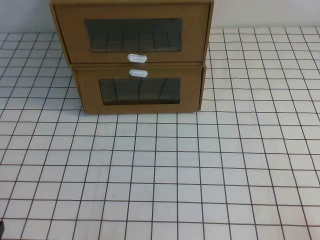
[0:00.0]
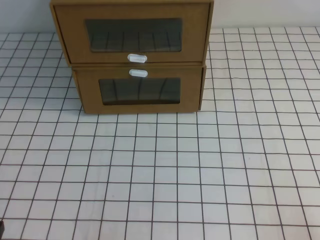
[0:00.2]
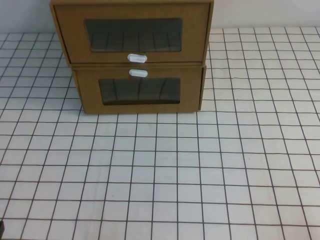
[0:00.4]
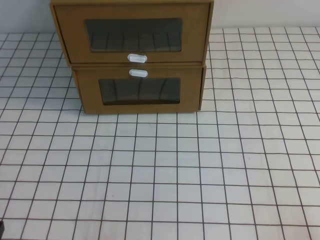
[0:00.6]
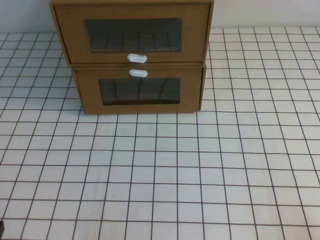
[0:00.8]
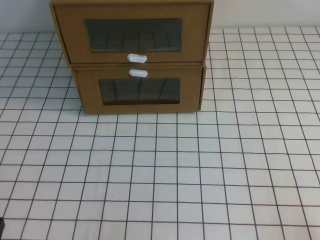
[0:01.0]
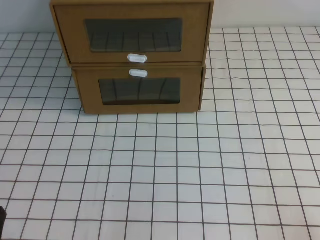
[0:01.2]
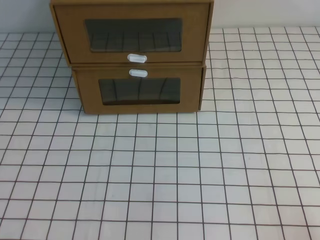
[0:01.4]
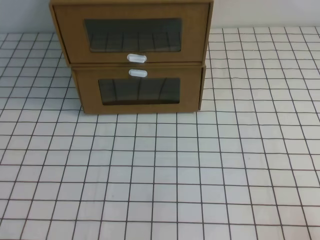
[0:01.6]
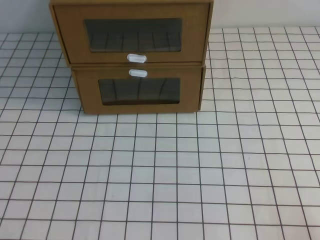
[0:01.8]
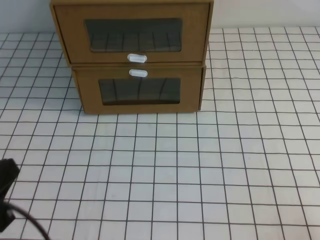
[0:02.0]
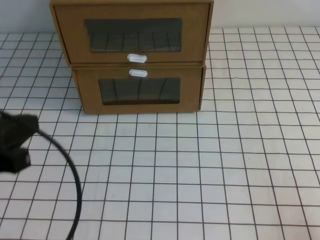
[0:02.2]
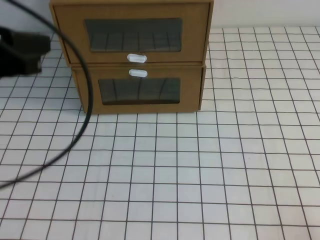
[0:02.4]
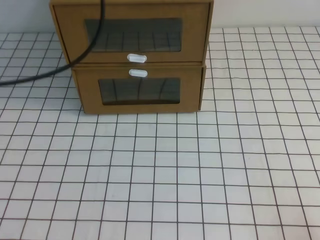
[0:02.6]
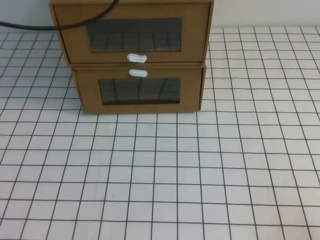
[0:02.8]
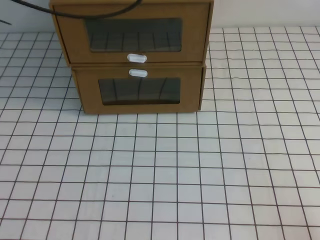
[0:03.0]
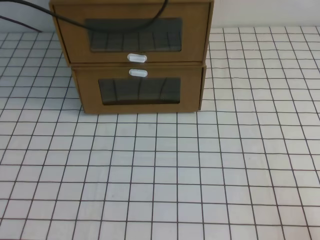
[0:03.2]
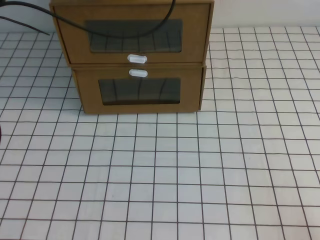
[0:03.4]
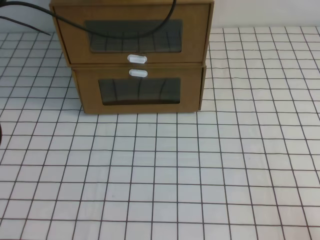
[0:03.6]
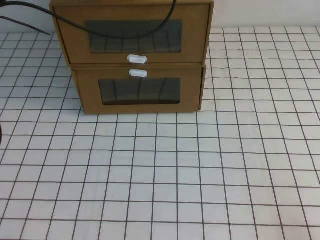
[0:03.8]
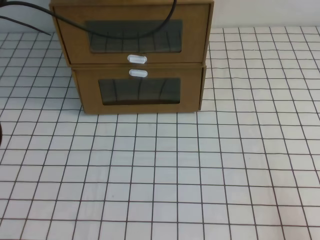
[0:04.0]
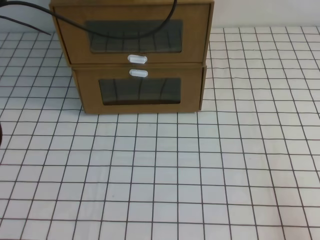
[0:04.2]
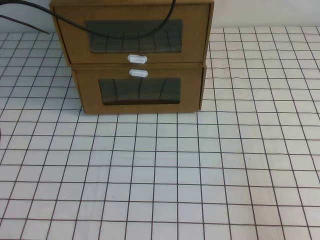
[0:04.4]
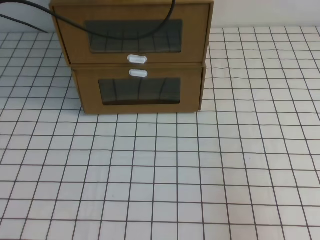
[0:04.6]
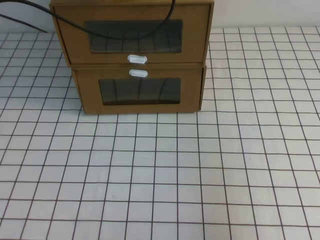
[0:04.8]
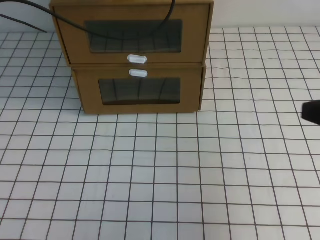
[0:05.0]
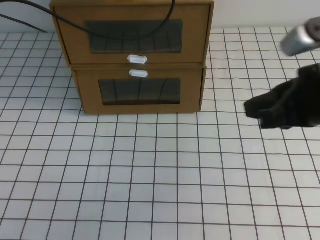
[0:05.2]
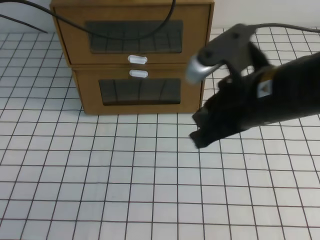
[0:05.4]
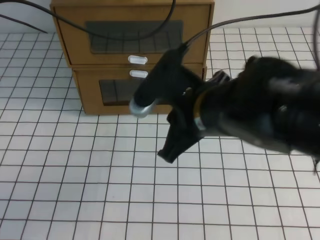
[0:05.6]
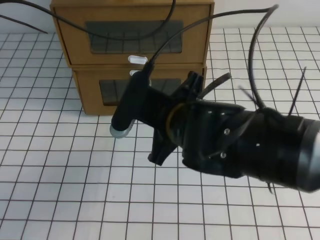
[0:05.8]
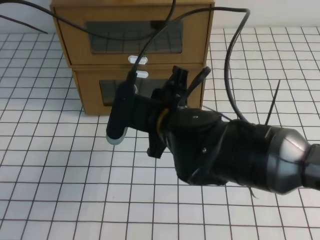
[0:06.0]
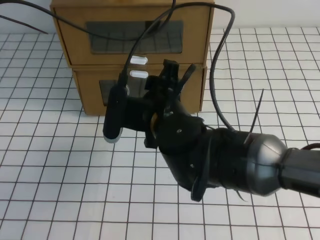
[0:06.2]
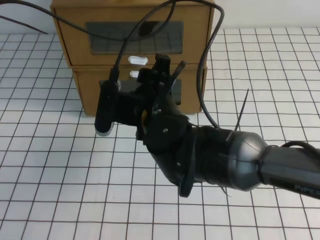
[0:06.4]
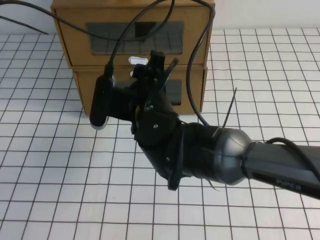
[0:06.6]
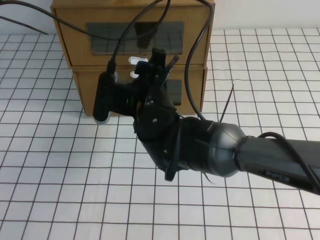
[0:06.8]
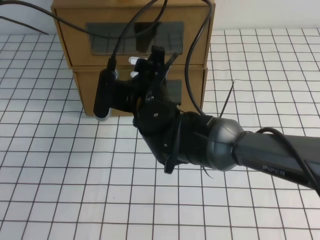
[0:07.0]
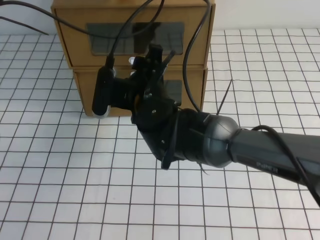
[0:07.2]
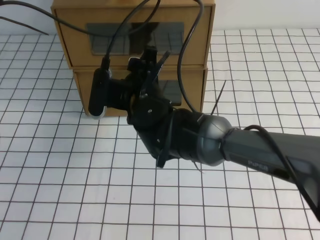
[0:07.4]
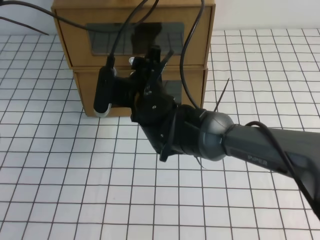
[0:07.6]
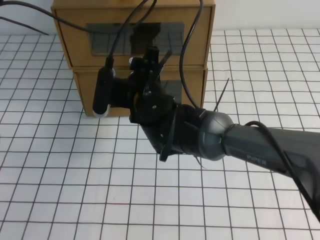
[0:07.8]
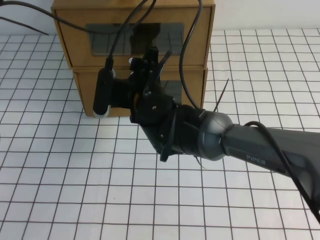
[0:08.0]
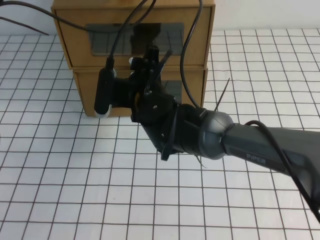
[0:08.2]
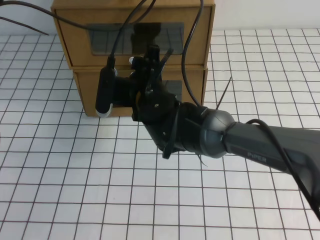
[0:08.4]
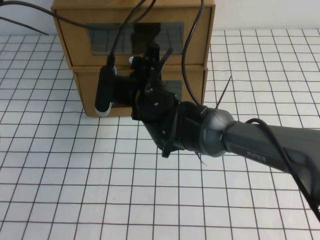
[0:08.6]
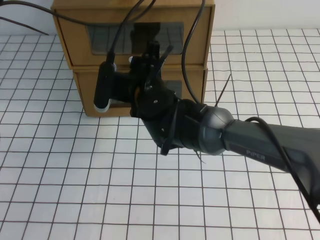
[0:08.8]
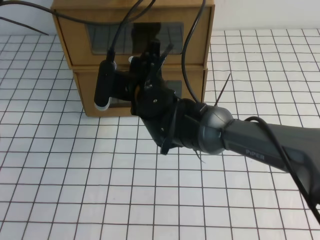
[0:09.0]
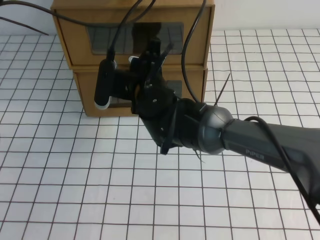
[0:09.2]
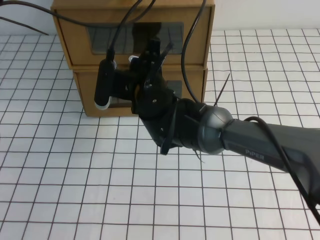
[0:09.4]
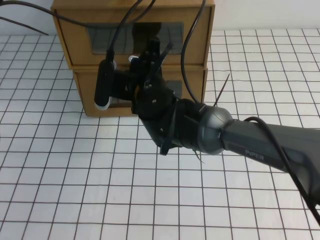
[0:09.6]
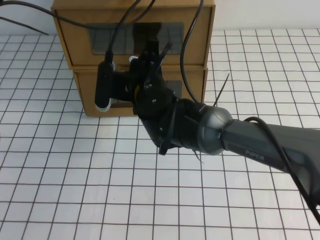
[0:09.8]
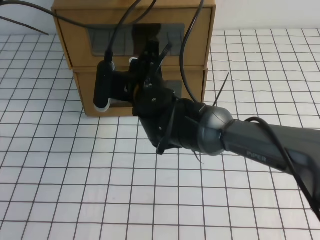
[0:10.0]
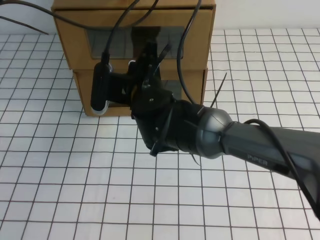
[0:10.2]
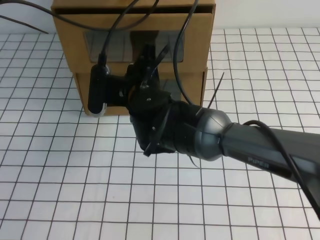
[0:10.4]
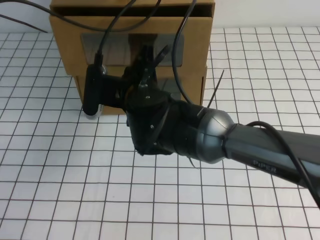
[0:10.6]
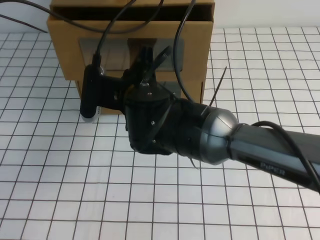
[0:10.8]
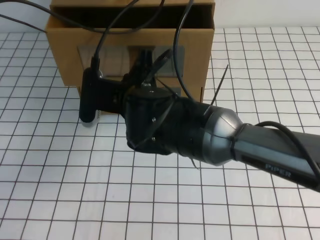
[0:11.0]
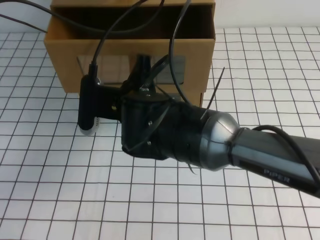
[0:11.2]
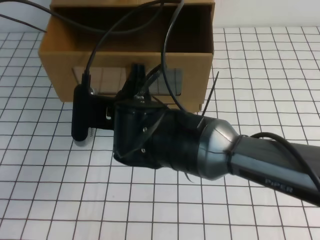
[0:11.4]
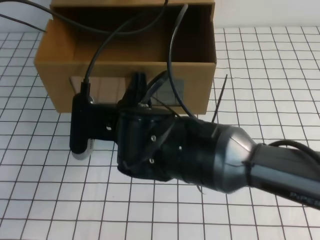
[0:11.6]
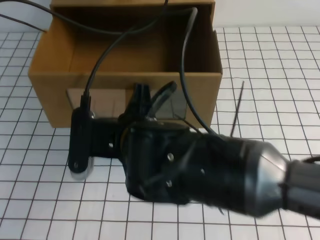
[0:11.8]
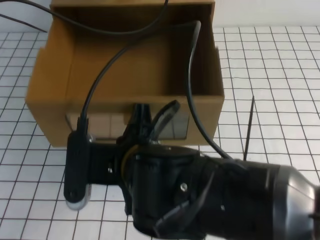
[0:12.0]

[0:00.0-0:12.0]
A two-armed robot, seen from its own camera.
Task of the whole recording: open the shoebox on the white tablecloth.
0:03.0 to 0:04.4: The left gripper heads forward and downward, covering some 10 cm.
0:04.4 to 0:06.0: The right gripper heads to the left and forward, covering roughly 35 cm.
0:06.0 to 0:07.6: The right gripper travels forward and to the left by about 10 cm, and opens up.
0:07.6 to 0:09.0: The right gripper closes its fingers.
0:09.0 to 0:10.4: The right gripper closes up.
0:10.4 to 0:12.0: The right gripper moves backward, about 15 cm.

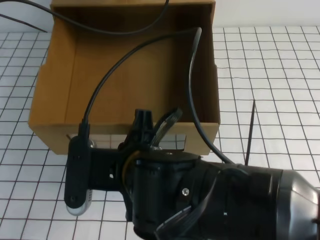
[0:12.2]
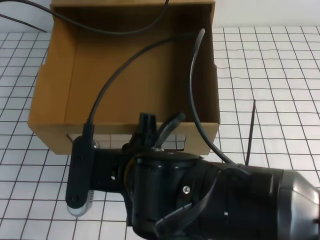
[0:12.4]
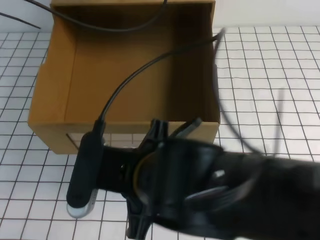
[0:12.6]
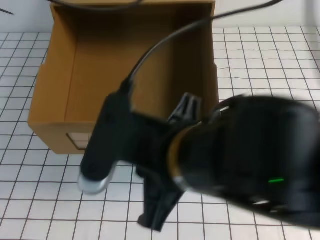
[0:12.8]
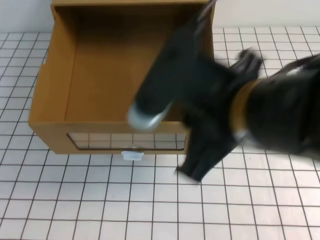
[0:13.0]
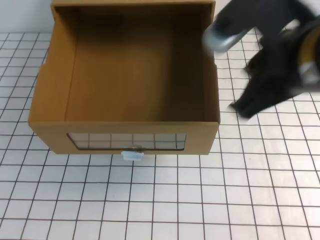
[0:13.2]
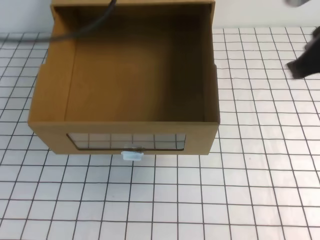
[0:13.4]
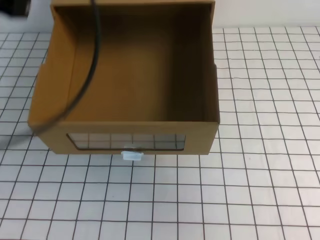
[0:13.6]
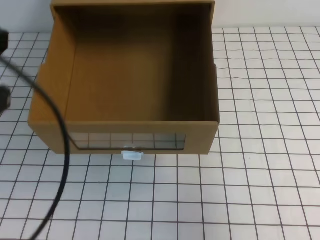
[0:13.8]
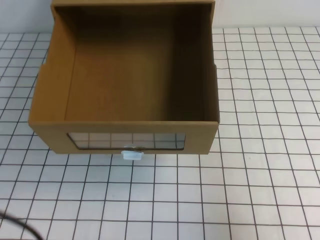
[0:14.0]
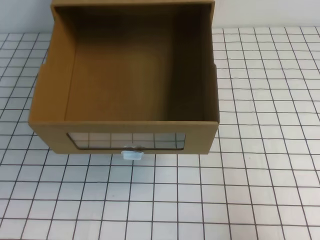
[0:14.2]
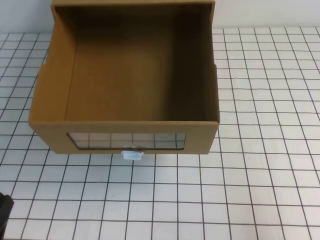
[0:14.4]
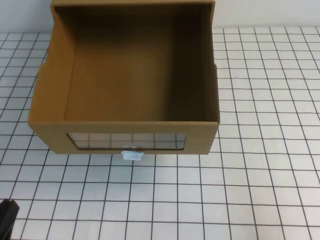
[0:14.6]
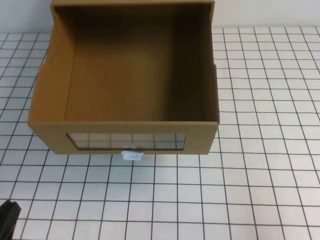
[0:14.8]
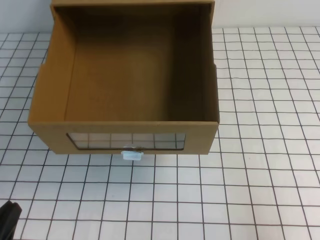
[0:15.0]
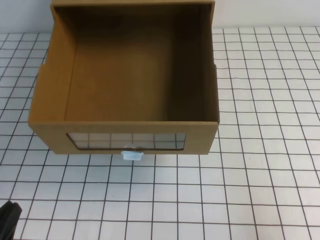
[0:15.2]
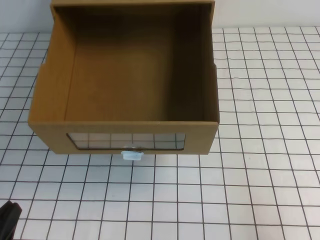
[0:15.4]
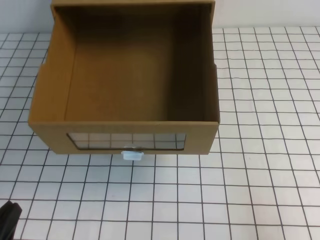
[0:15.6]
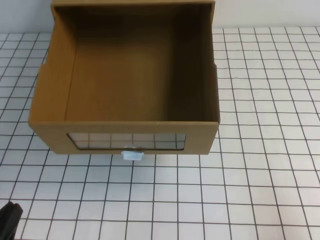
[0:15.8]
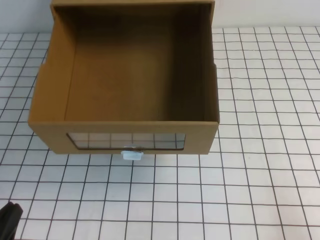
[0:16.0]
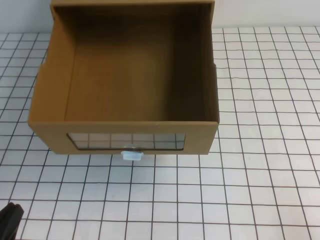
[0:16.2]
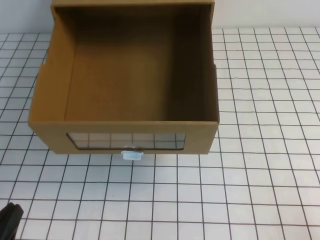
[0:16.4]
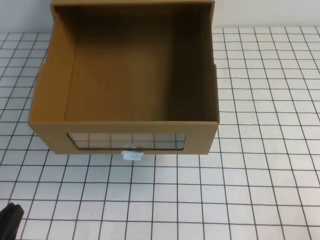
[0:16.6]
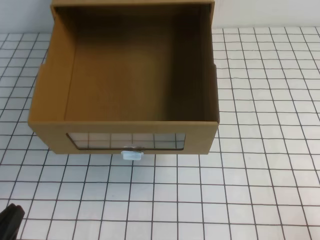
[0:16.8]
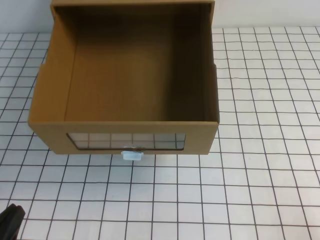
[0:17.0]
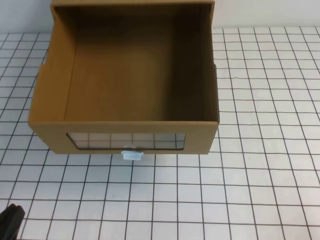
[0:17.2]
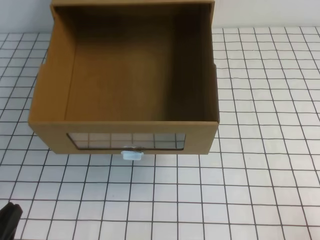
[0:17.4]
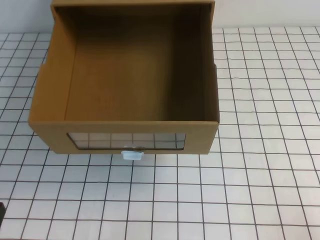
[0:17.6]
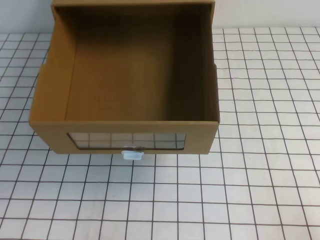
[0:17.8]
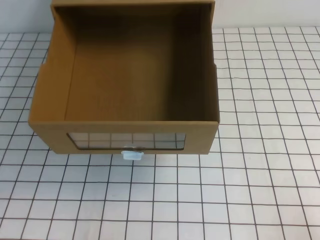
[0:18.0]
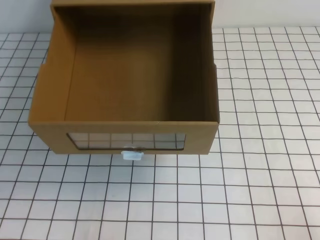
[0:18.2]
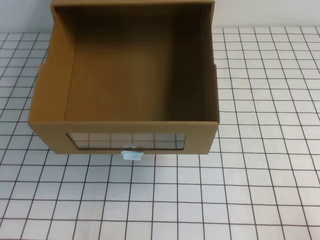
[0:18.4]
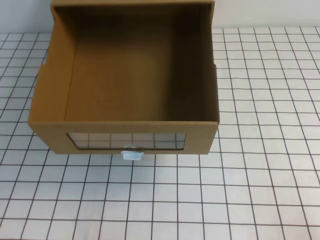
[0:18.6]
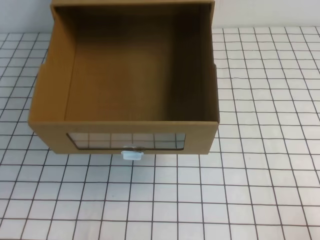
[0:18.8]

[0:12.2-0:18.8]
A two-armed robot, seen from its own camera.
Task of the whole recording: open the shoebox on the white tablecloth.
Step, 0:12.2 to 0:18.8: Open the shoe box.
0:12.2 to 0:13.8: The left gripper heads backward, covering roughly 25 cm, while the right gripper shifts about 30 cm to the right.
0:13.8 to 0:15.4: The right gripper shifts some 15 cm downward and backward; the left gripper shifts some 30 cm downward and backward.
0:15.4 to 0:17.2: The right gripper travels downward and backward by roughly 10 cm.

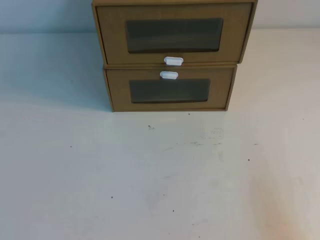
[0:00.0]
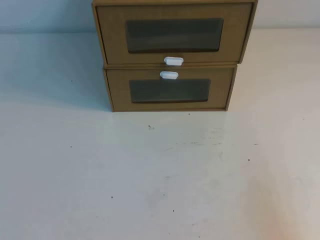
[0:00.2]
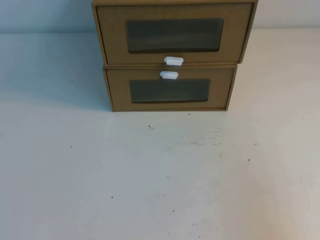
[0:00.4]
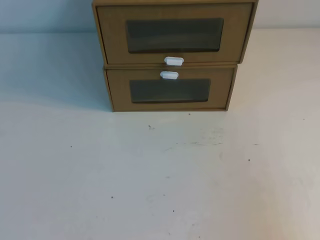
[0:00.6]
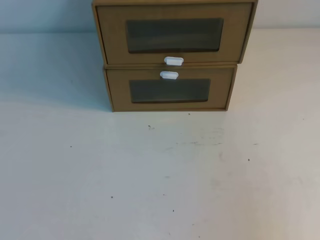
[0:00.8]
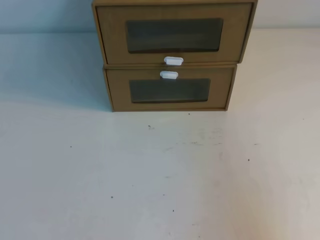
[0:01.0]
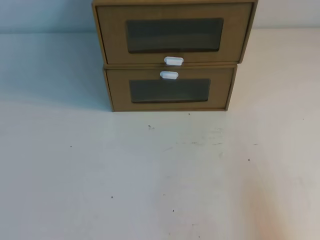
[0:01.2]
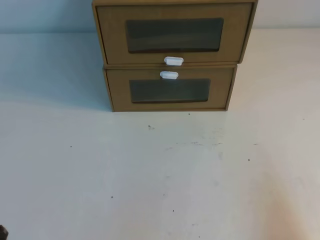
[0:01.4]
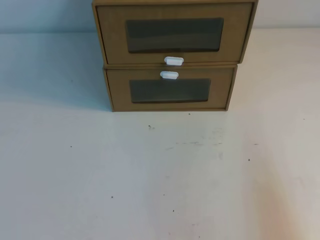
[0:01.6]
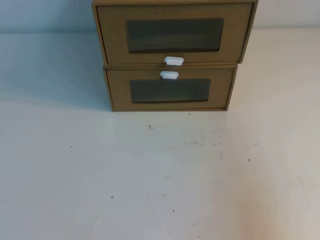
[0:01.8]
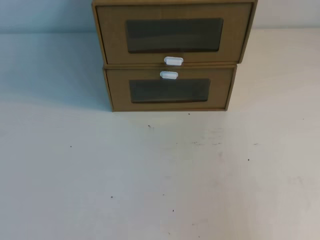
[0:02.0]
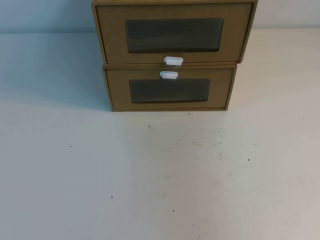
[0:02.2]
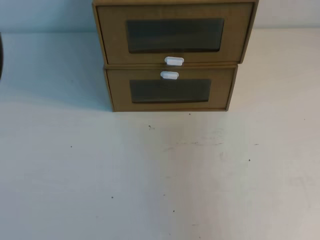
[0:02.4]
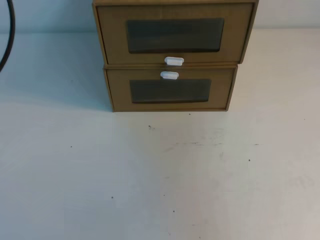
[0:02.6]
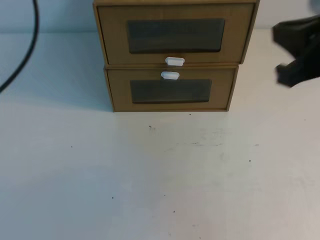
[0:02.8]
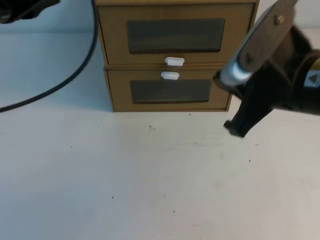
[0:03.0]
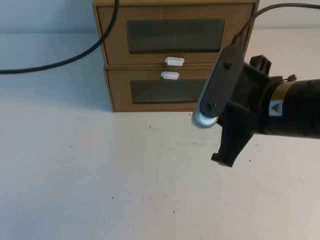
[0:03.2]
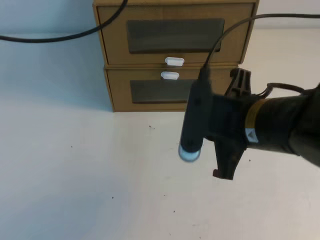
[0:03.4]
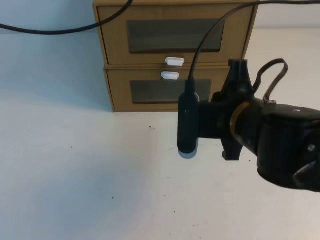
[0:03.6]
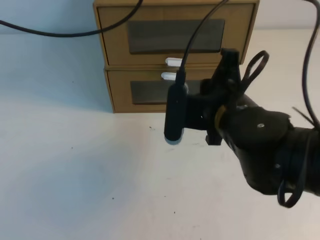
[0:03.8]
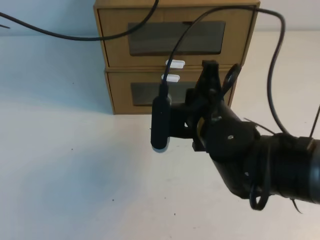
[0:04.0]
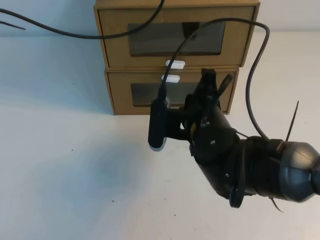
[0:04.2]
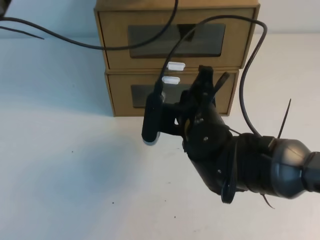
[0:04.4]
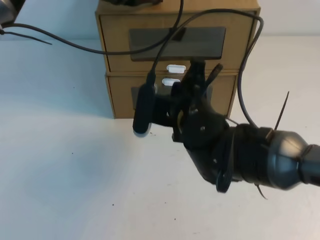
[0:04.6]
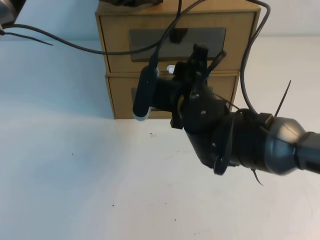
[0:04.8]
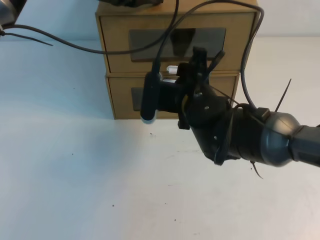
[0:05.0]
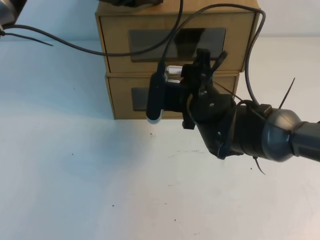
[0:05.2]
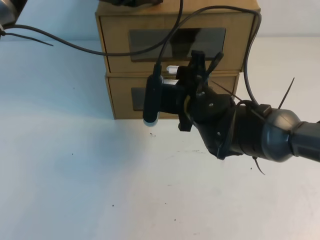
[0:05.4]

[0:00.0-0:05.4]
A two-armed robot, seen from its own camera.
Task of the whole recording: open the shoebox on the table.
0:01.4 to 0:02.8: The left gripper goes some 25 cm upward and forward. Meanwhile the right gripper moves upward, forward and to the left, some 25 cm.
0:02.8 to 0:04.0: The right gripper travels to the left and downward by about 20 cm, while the left gripper heads forward and to the right, covering some 20 cm.
0:04.0 to 0:05.4: The left gripper moves about 5 cm. Meanwhile the right gripper travels forward by some 10 cm, and opens up.
